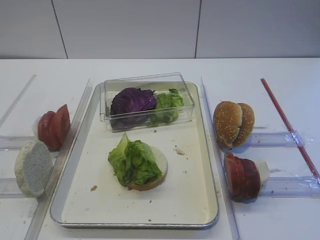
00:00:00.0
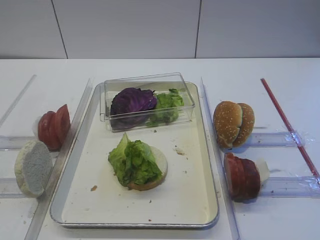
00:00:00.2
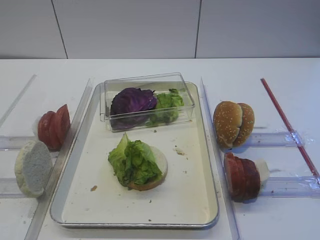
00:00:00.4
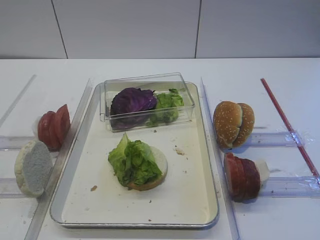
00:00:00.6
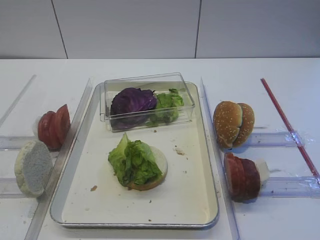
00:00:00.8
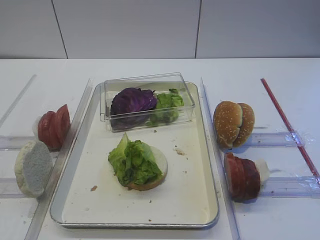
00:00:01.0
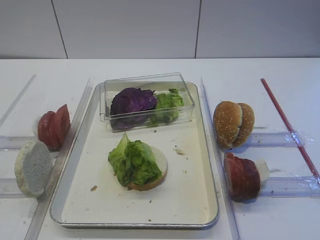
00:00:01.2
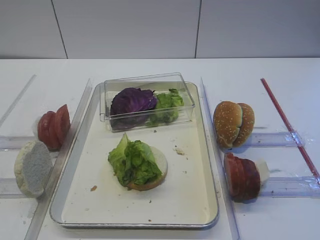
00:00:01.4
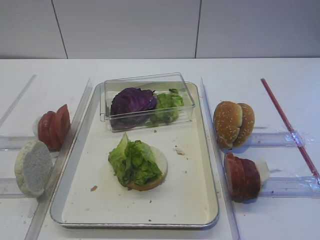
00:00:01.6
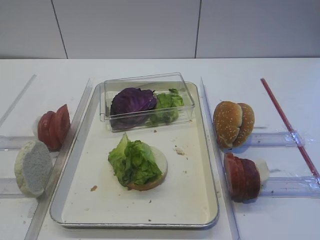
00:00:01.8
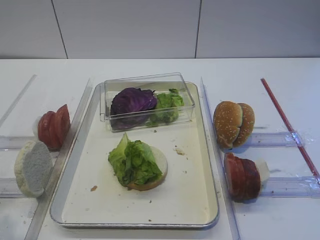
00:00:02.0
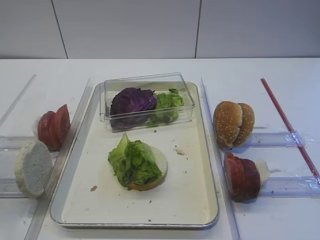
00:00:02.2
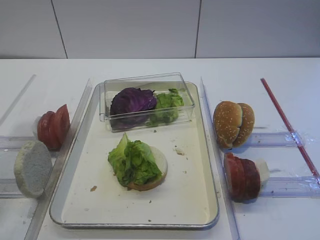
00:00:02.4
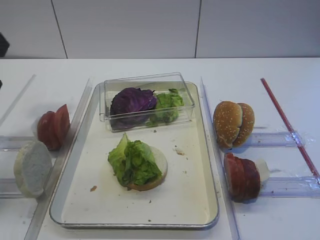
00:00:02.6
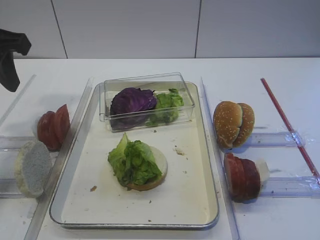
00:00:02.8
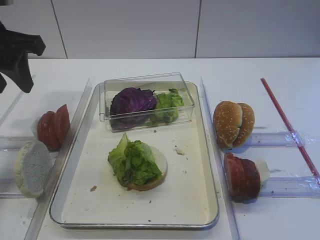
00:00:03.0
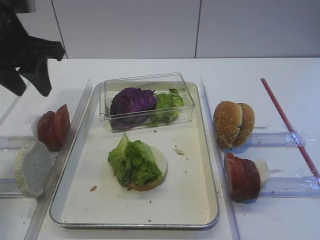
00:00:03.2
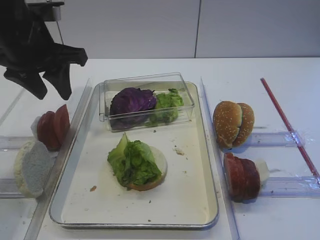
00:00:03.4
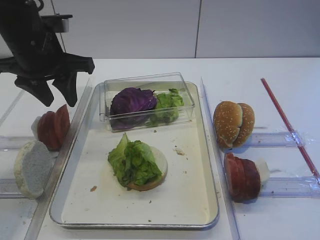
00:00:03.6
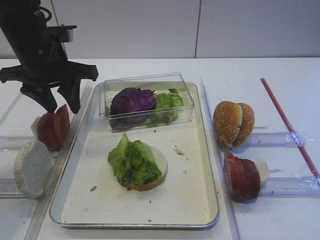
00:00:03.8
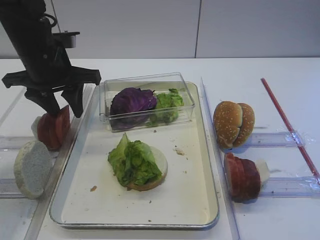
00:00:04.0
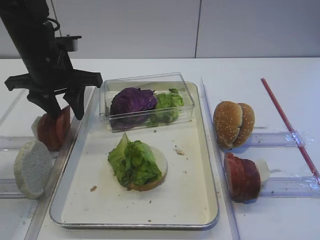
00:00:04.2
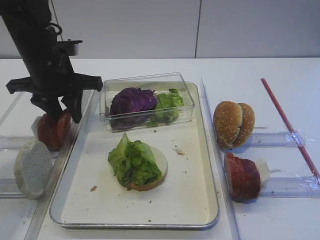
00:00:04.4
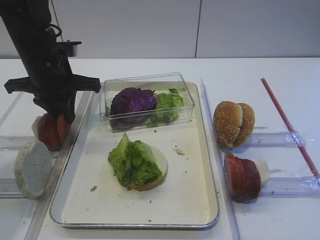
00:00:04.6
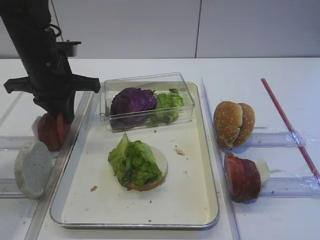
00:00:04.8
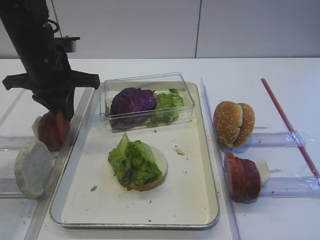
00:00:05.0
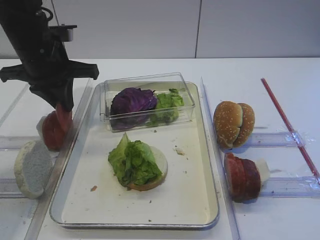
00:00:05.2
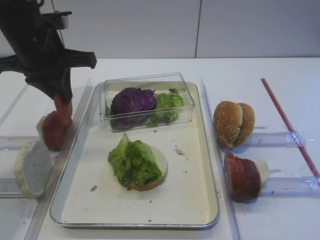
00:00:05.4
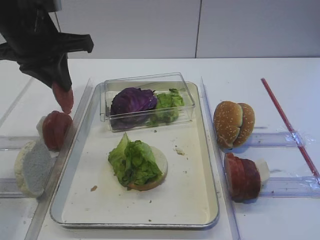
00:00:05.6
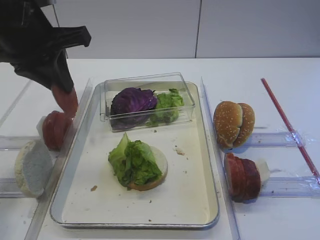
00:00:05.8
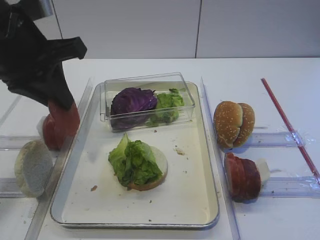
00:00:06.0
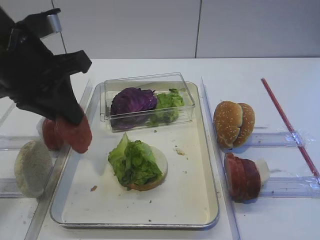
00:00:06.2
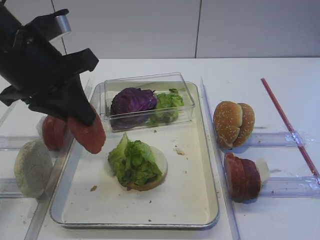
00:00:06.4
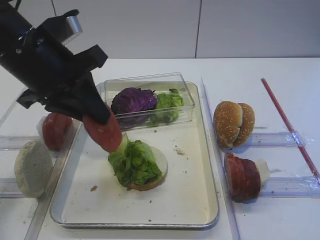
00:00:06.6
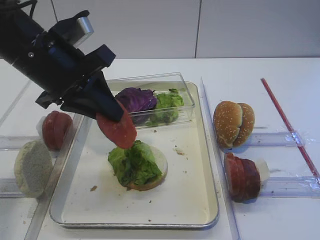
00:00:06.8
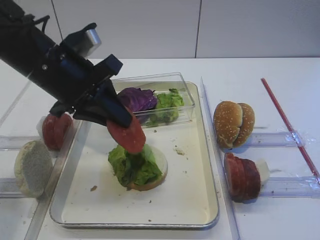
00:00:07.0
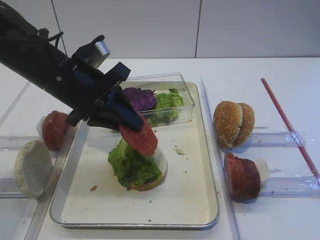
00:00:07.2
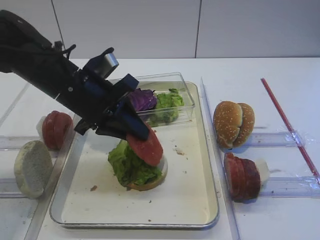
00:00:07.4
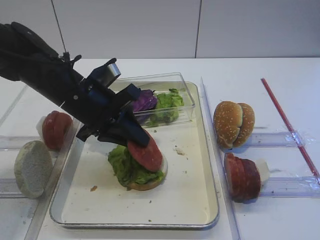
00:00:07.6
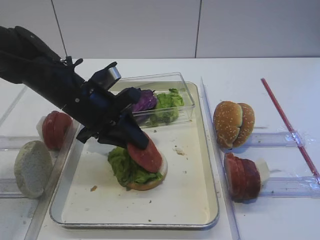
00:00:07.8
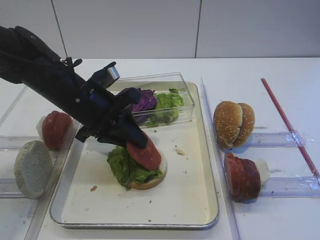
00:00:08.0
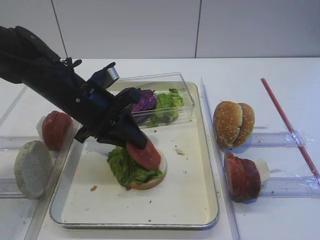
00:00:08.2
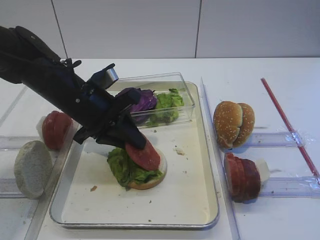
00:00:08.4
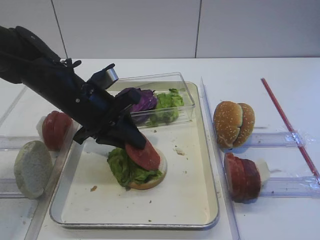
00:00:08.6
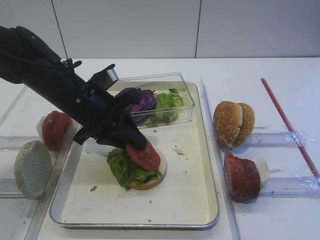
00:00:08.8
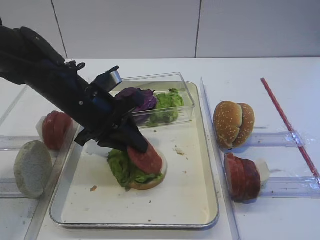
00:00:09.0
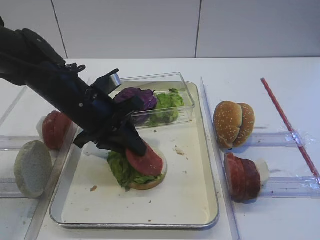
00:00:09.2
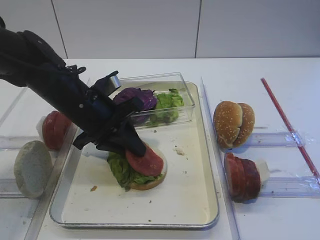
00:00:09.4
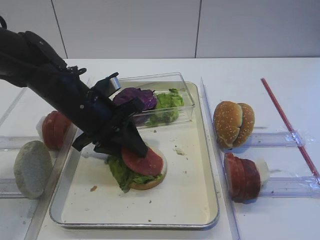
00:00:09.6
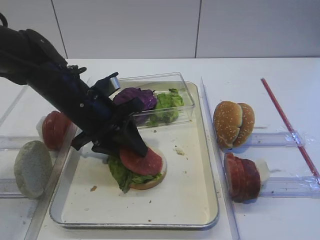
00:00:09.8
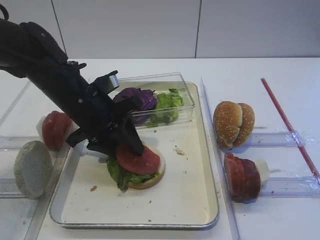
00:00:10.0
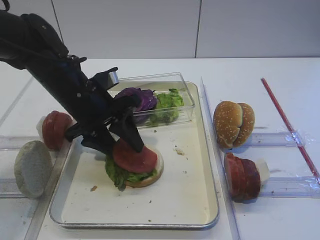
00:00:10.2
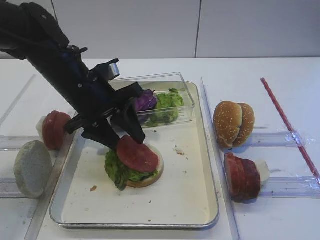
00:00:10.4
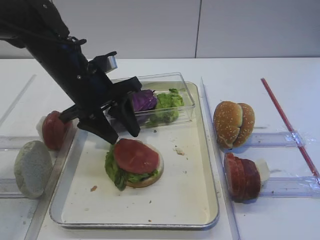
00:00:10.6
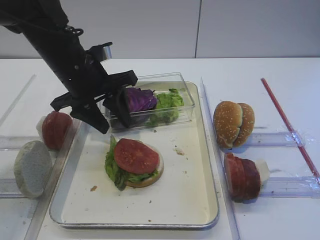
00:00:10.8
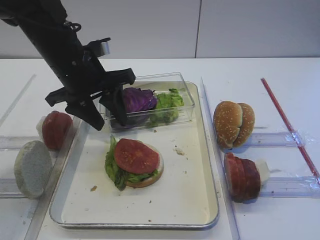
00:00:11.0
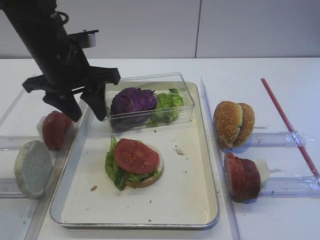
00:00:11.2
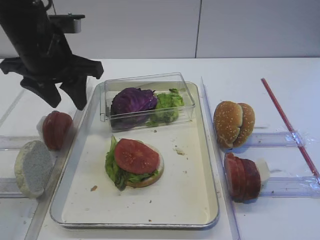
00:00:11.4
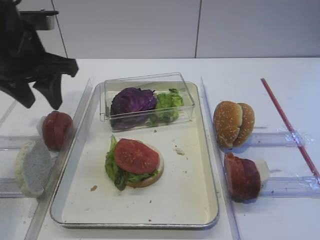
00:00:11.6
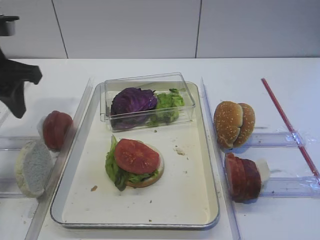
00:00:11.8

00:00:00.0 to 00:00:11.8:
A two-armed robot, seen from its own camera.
Step, 00:00:00.0 to 00:00:05.6: Pick up the tomato slice with the left gripper.
Step, 00:00:05.8 to 00:00:10.8: Place the tomato slice on the lettuce leaf with the left gripper.
00:00:01.4 to 00:00:03.0: The left gripper travels forward by approximately 30 cm.
00:00:03.0 to 00:00:04.4: The left gripper moves downward, forward and to the right, some 15 cm.
00:00:04.4 to 00:00:06.0: The left gripper shifts roughly 10 cm backward and upward, and closes.
00:00:06.0 to 00:00:07.4: The left gripper goes approximately 10 cm downward and to the right.
00:00:07.4 to 00:00:08.8: There are only small adjustments of the grippers.
00:00:08.8 to 00:00:10.4: The left gripper opens up.
00:00:10.4 to 00:00:11.8: The left gripper moves to the left and upward, approximately 15 cm.

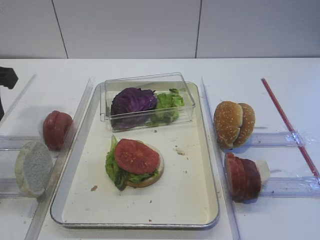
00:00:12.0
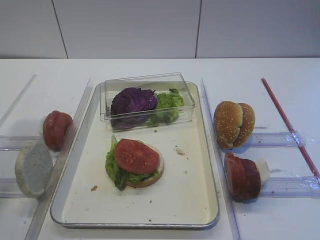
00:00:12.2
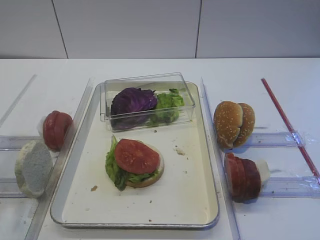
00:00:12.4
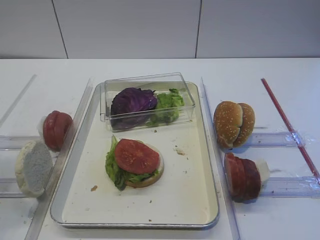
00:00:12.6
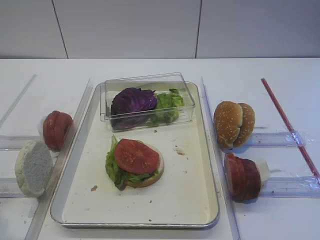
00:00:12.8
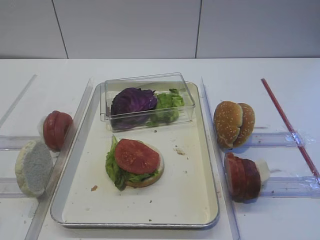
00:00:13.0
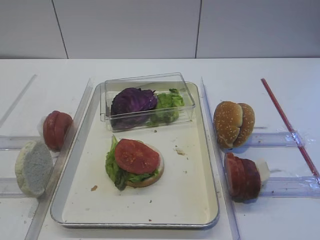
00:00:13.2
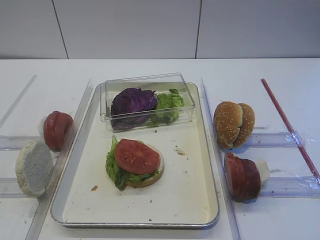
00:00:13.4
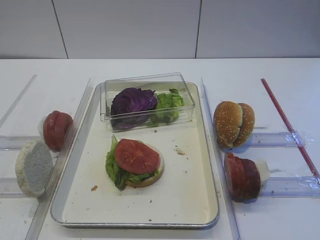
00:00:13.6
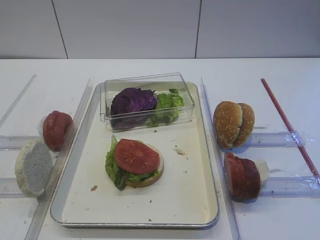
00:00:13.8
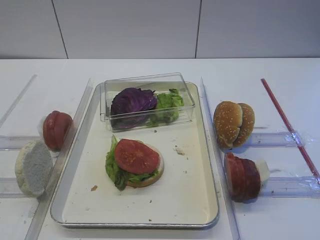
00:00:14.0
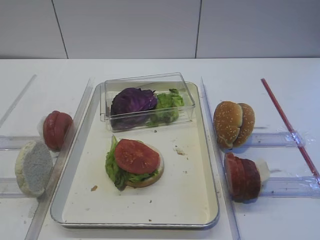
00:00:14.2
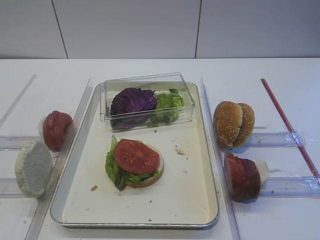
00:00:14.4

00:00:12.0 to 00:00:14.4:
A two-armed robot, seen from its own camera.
00:00:12.0 to 00:00:13.2: The left gripper is displaced backward by approximately 25 cm.
